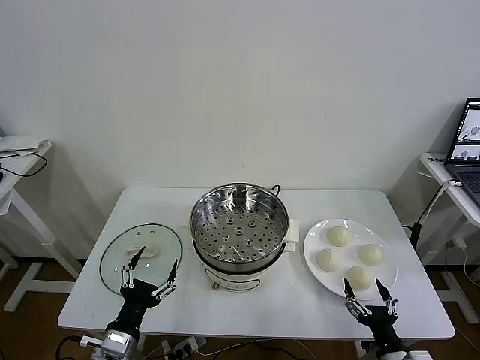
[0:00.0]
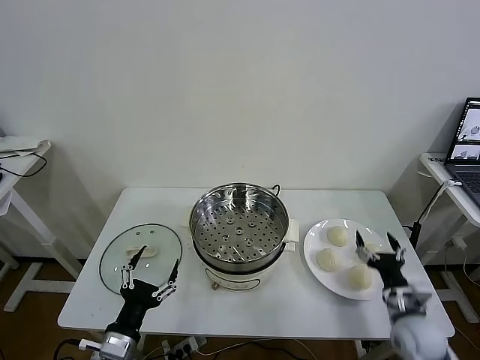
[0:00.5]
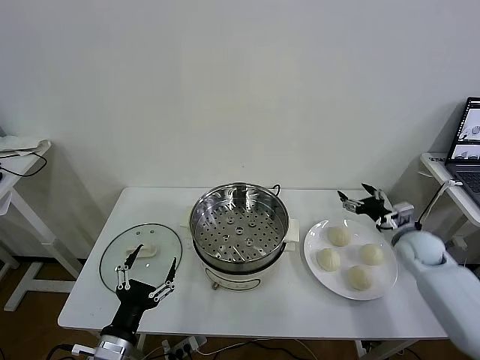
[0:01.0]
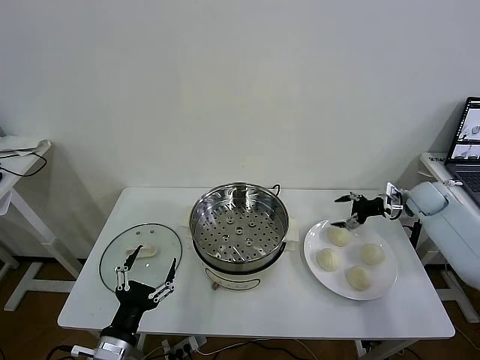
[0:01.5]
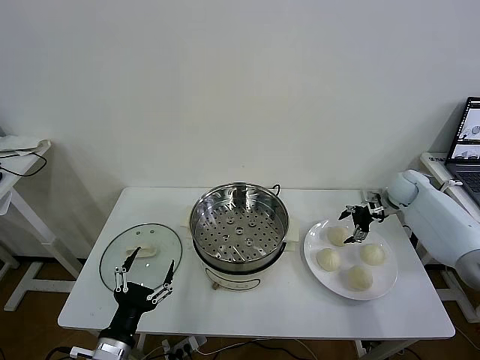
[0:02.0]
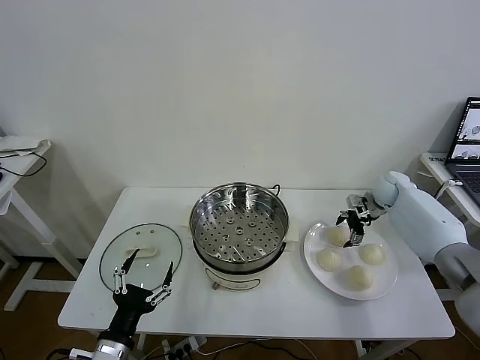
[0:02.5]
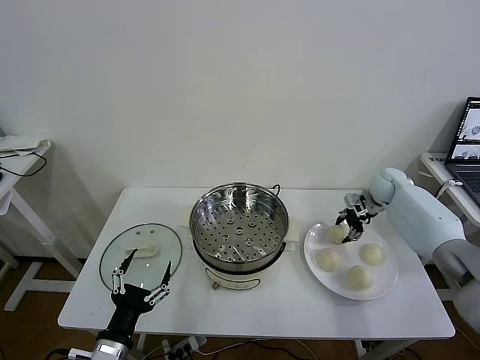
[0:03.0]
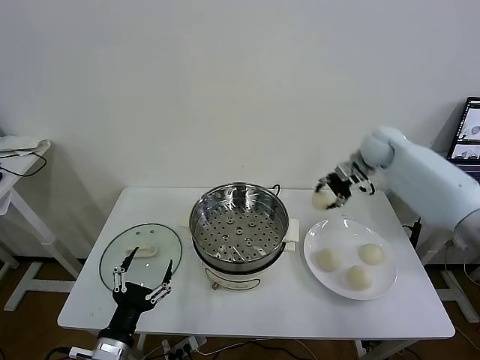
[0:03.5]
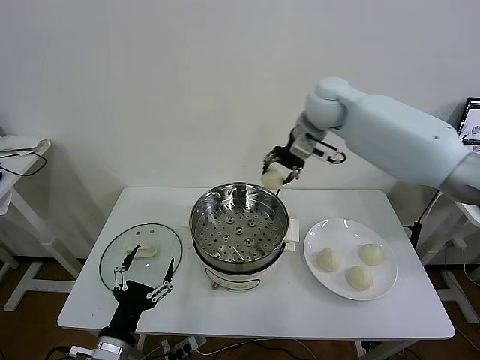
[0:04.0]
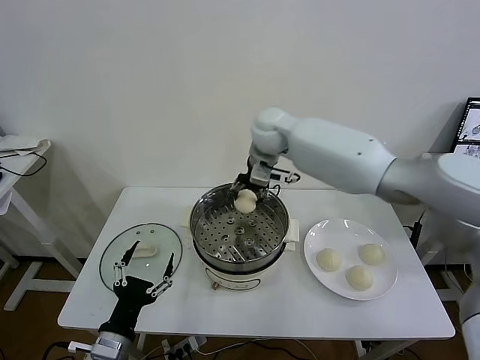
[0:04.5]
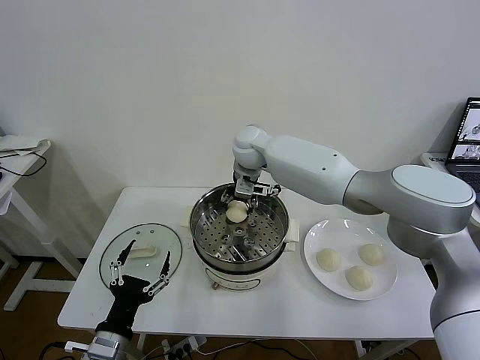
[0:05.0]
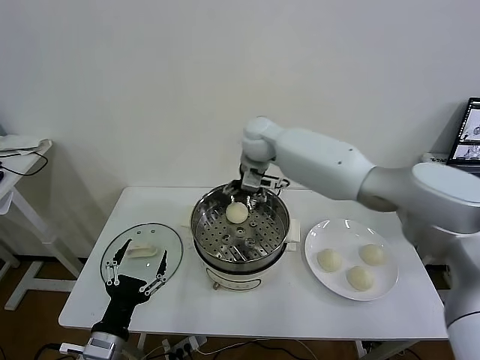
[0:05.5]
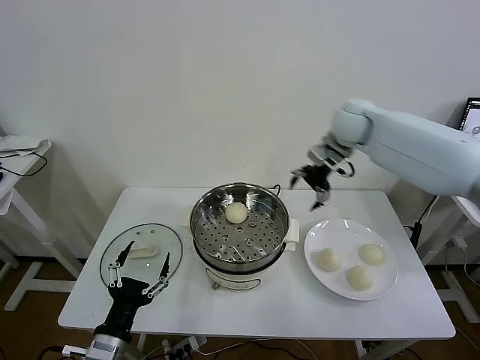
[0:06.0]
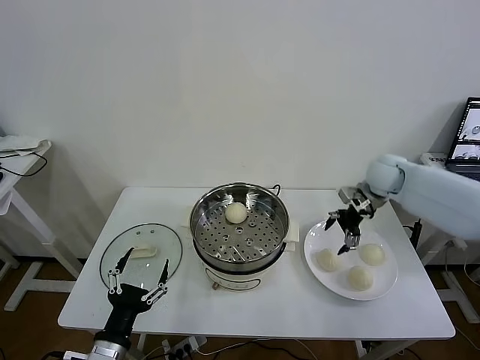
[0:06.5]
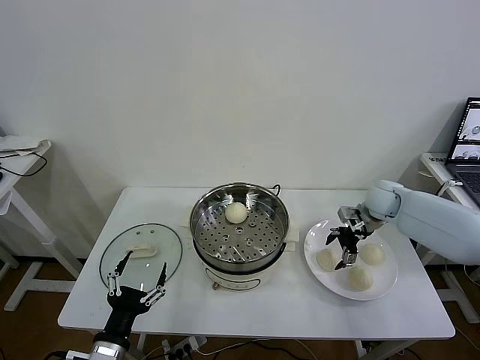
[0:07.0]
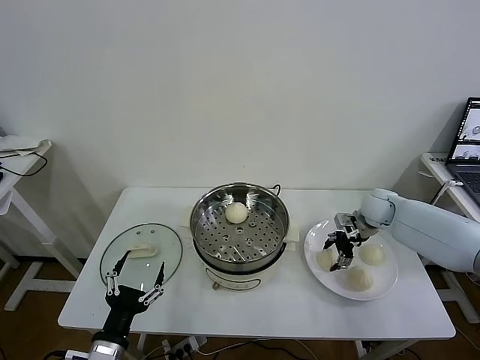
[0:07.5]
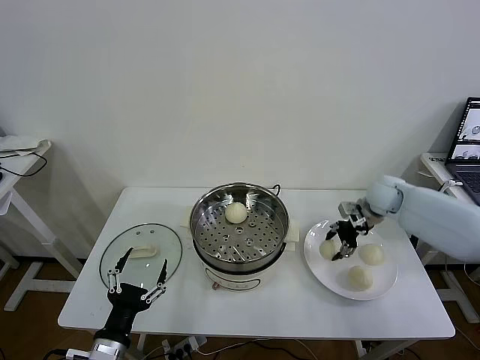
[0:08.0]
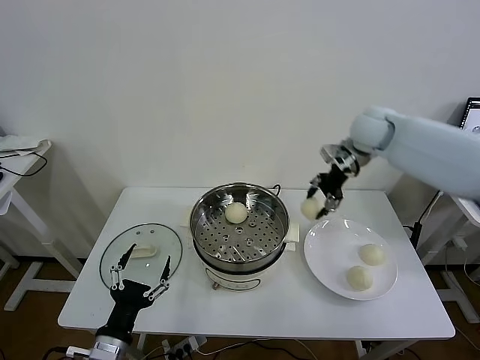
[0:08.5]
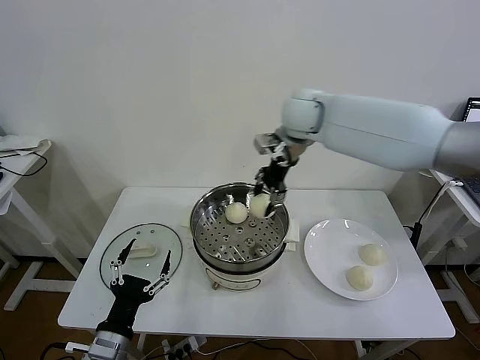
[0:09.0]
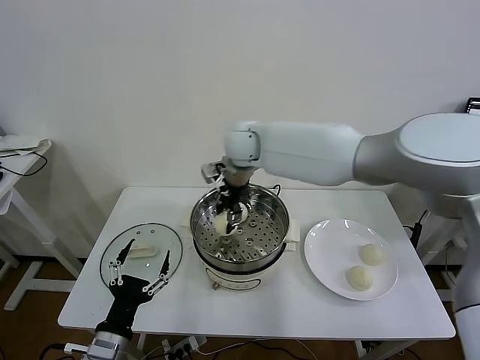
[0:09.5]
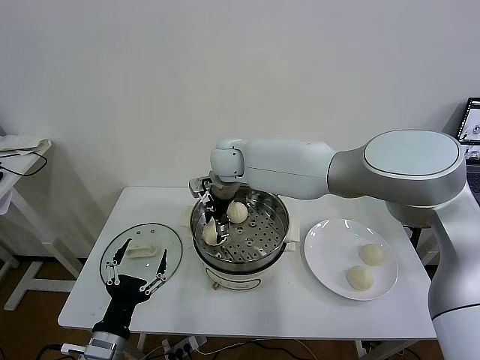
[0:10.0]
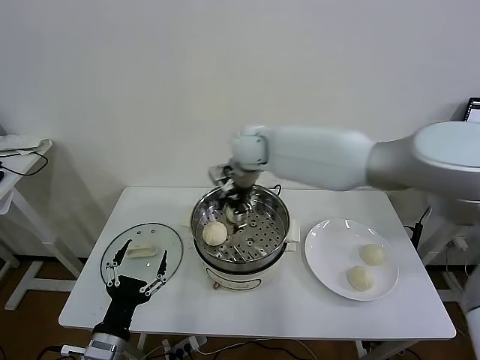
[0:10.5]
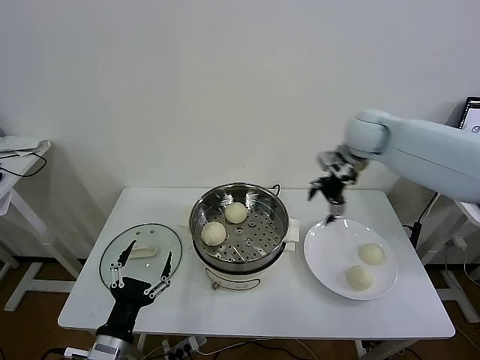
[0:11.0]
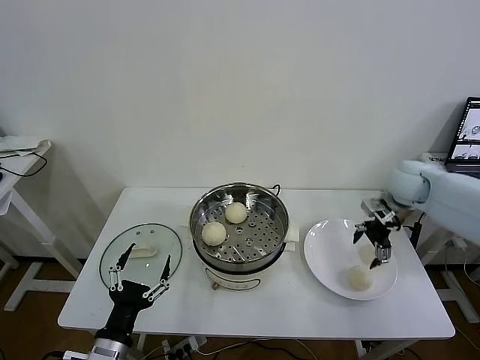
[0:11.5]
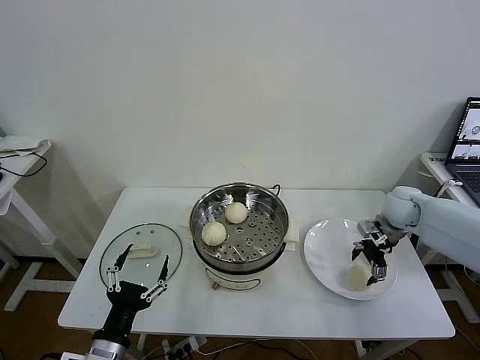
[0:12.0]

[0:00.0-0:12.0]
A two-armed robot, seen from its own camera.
Task of the whole recording: take steamed baozi put them in steamer then cover it.
Step, 0:00.0 to 0:02.5: Grasp the baozi in the plate with right gripper.
Step, 0:03.0 to 0:05.0: Place the baozi on the steamer with right gripper.
Step, 0:05.5 to 0:07.5: Grasp the baozi in the plate with right gripper.
Step, 0:08.0 to 0:10.0: Place the baozi on the steamer with right gripper.
0:02.0 to 0:04.0: The right gripper is displaced to the left and upward by about 35 cm, and closes up.
0:04.0 to 0:06.0: The right gripper moves to the right and downward, approximately 15 cm, and opens its fingers.
0:06.0 to 0:08.0: The right gripper shifts some 15 cm downward and to the right, and closes.
0:08.0 to 0:10.0: The right gripper goes approximately 40 cm to the left, and opens up.
0:10.0 to 0:12.0: The right gripper heads to the right, covering approximately 40 cm.

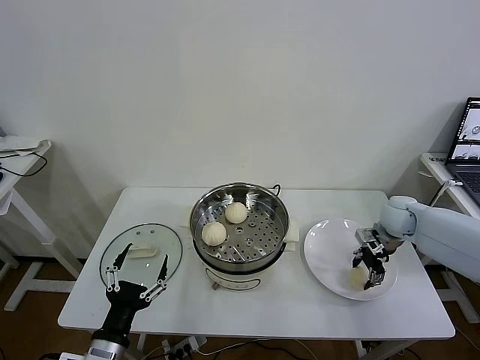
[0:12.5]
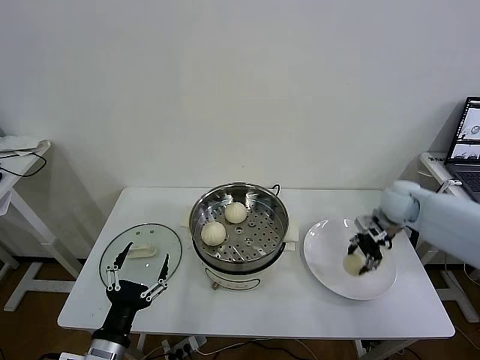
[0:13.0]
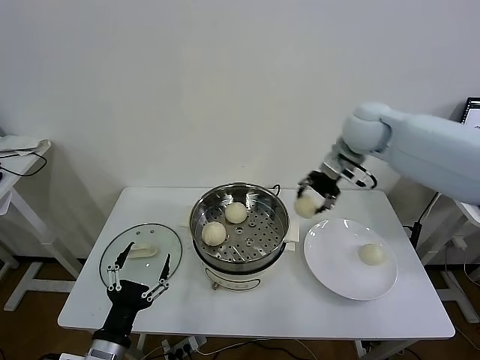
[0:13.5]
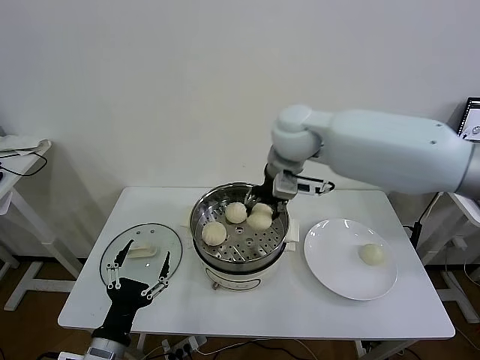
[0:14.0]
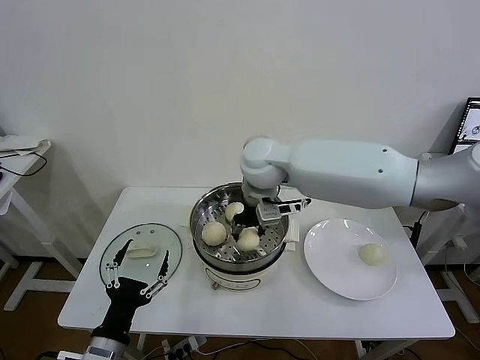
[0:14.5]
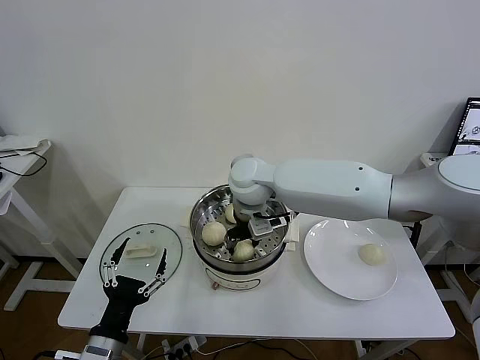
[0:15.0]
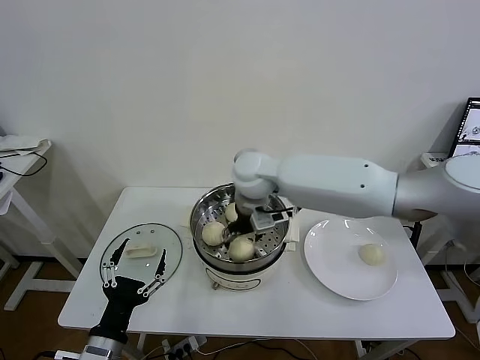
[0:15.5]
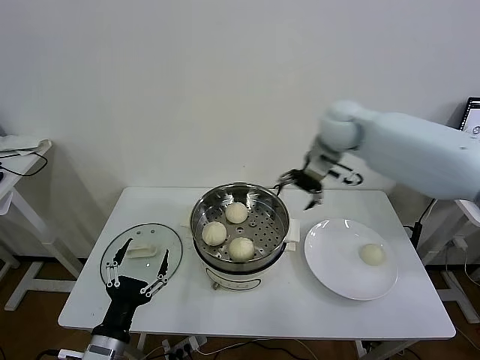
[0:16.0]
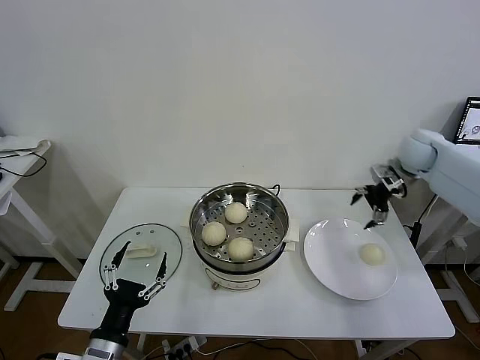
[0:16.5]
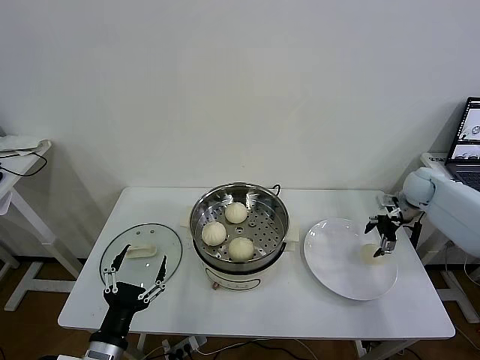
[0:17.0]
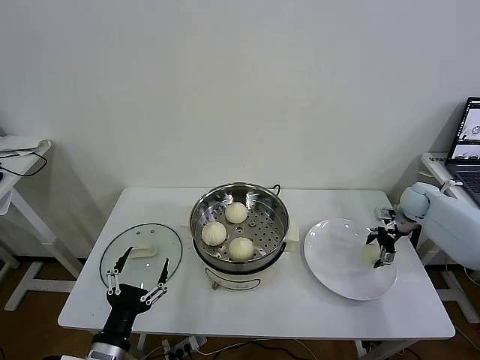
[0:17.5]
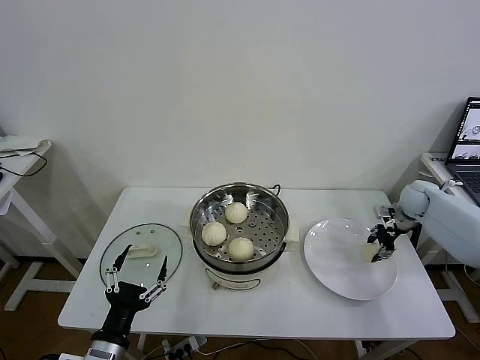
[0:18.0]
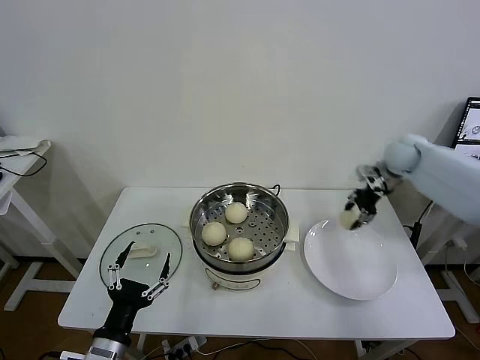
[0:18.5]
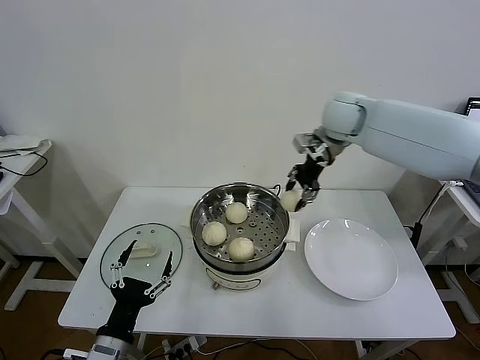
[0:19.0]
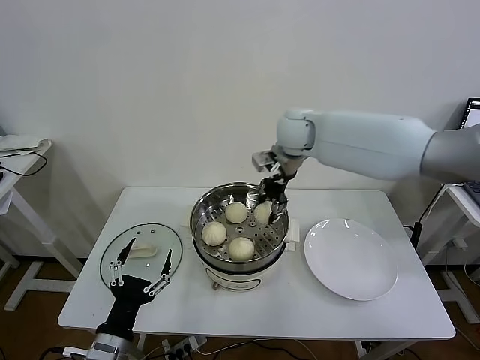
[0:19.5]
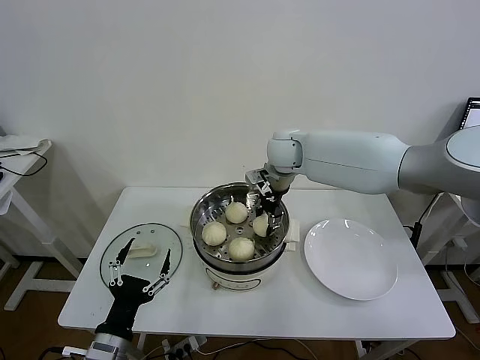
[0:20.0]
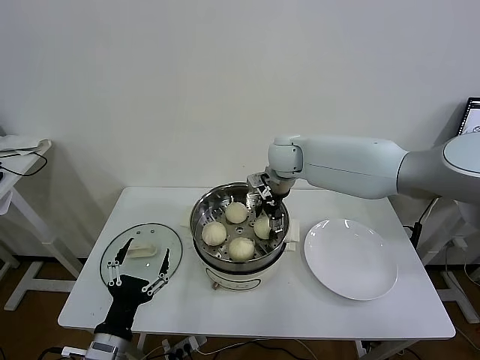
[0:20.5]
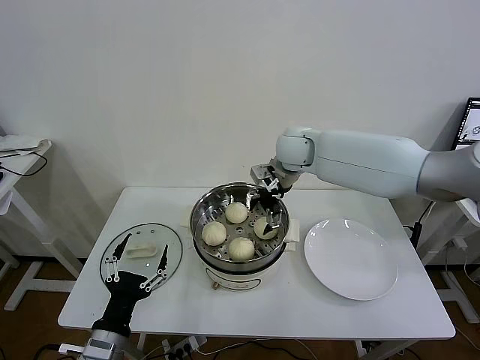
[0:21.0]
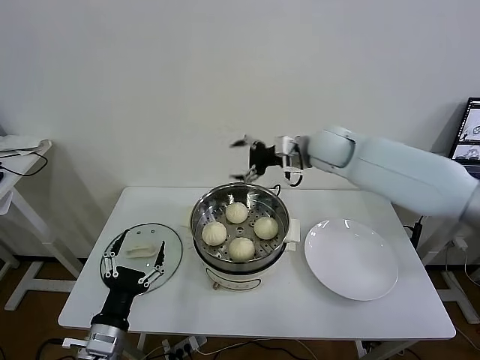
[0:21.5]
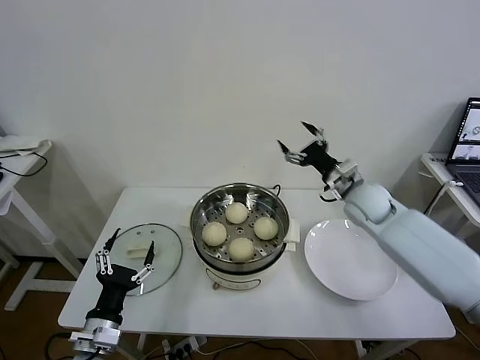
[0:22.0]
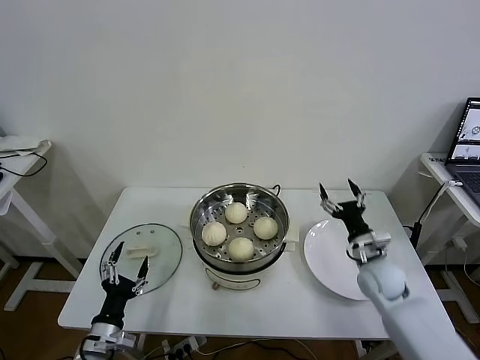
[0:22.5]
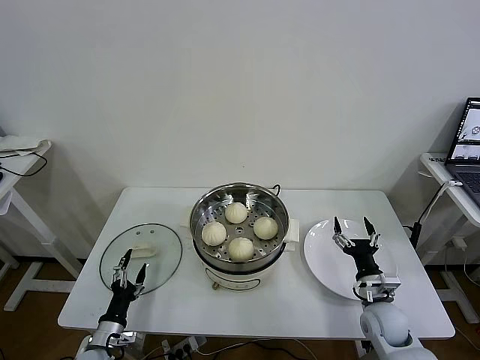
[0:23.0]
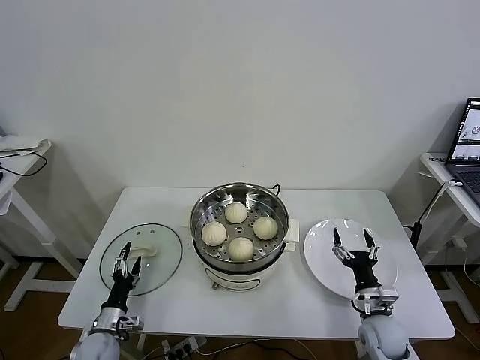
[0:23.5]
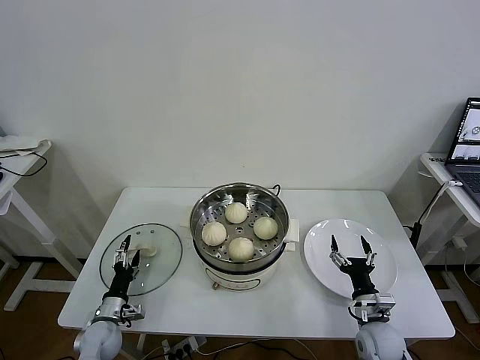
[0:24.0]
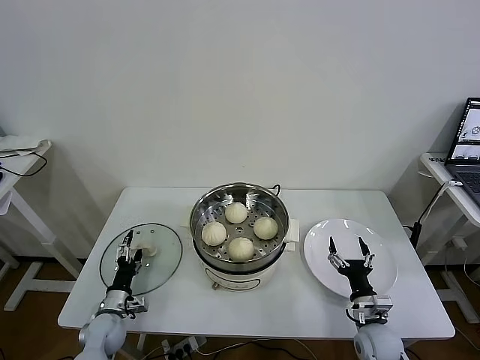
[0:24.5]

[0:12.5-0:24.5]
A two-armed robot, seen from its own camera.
Task of the whole recording: take steamed baozi put them in steamer then cover it.
Step, 0:13.0 to 0:15.0: Place the baozi on the steamer with right gripper.
Step, 0:15.5 to 0:18.0: Grasp the baozi in the plate with right gripper.
Step, 0:18.5 to 0:20.5: Place the baozi on the steamer with right gripper.
0:12.5 to 0:14.5: The right gripper goes roughly 40 cm to the left and upward.
0:14.5 to 0:16.5: The right gripper goes approximately 40 cm to the right, and opens up.
0:16.5 to 0:18.5: The right gripper goes downward and returns, approximately 15 cm each way, and closes its fingers.
0:18.5 to 0:20.5: The right gripper travels to the left by approximately 30 cm, and opens.
0:20.5 to 0:22.5: The right gripper heads to the right, downward and backward, covering some 35 cm, while the left gripper goes approximately 10 cm downward and to the left.
0:22.5 to 0:24.5: The left gripper is displaced forward and downward by about 15 cm; the right gripper goes about 15 cm backward and downward.

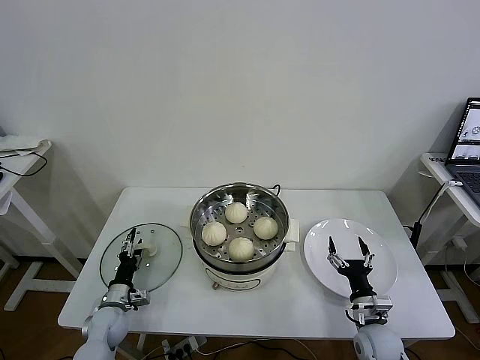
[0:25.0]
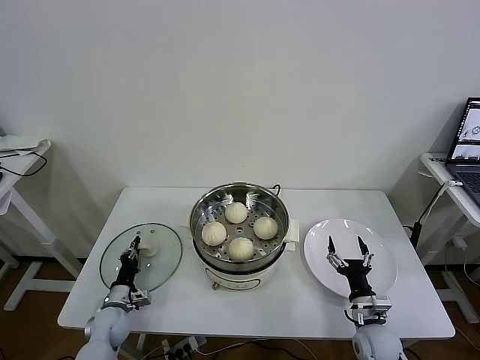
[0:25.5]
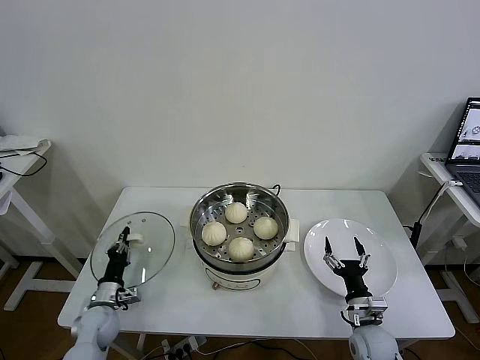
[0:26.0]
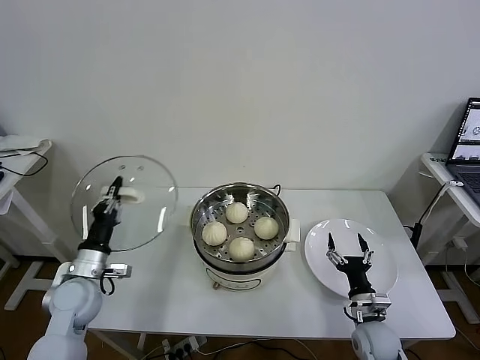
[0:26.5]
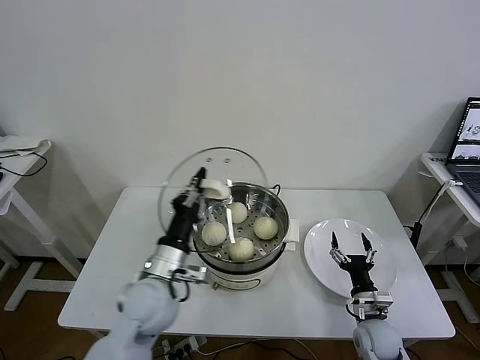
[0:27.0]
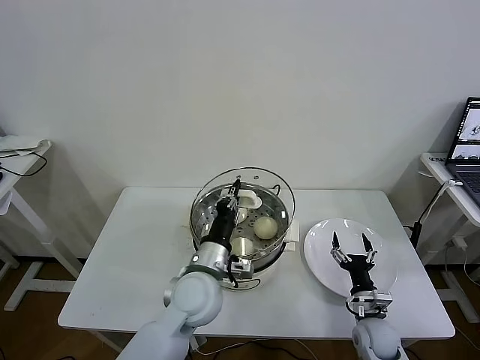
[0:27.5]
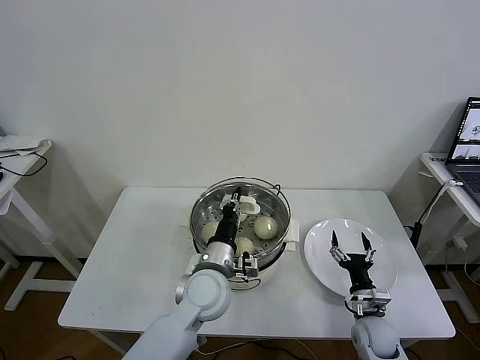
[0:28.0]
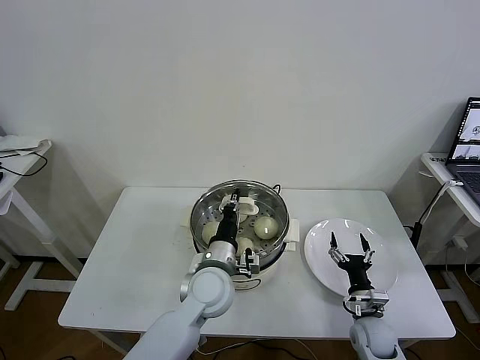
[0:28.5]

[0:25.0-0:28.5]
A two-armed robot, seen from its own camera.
Task of the whole recording: take steamed baozi put them in steamer then cover it.
0:25.0 to 0:27.0: The left gripper shifts approximately 30 cm upward and to the right, and closes its fingers.
0:27.0 to 0:28.5: The left gripper heads to the right, covering about 10 cm.
